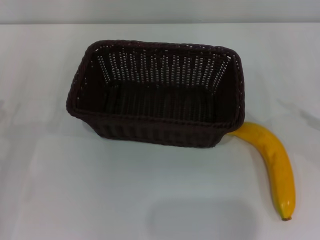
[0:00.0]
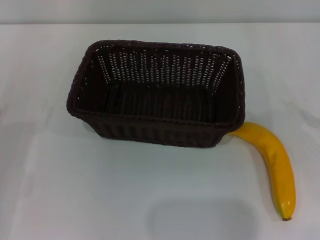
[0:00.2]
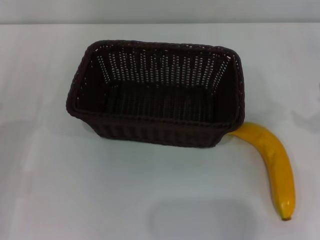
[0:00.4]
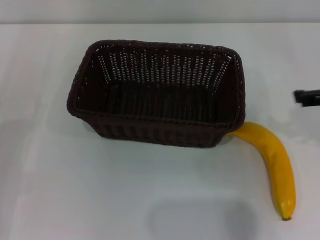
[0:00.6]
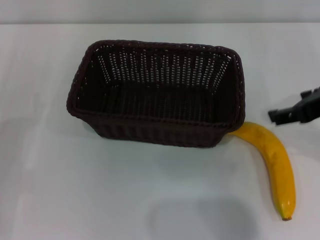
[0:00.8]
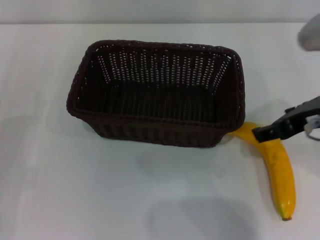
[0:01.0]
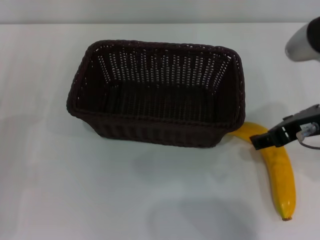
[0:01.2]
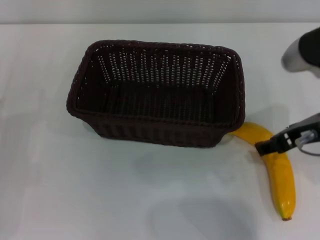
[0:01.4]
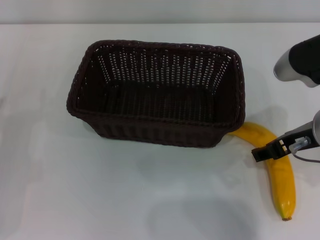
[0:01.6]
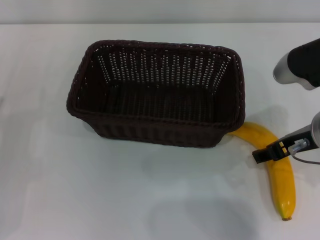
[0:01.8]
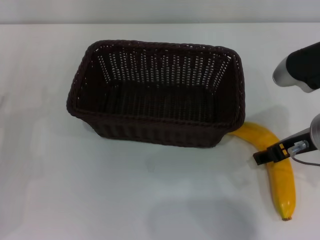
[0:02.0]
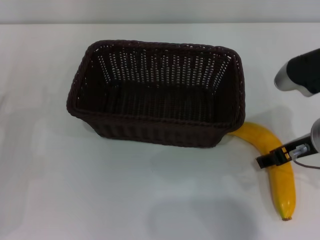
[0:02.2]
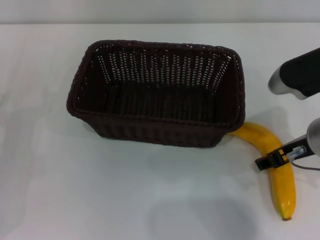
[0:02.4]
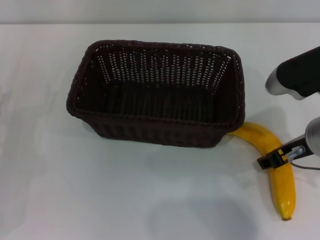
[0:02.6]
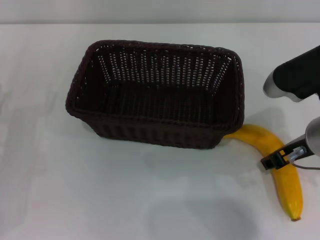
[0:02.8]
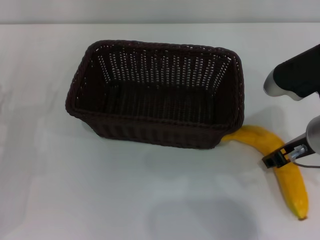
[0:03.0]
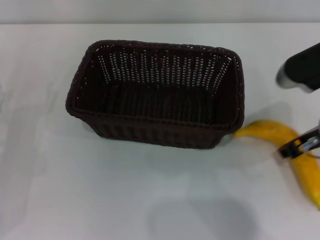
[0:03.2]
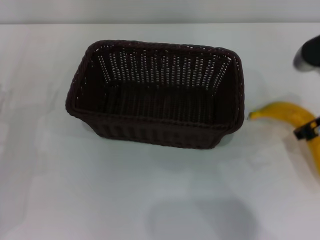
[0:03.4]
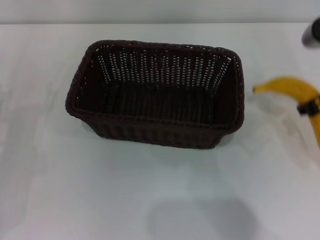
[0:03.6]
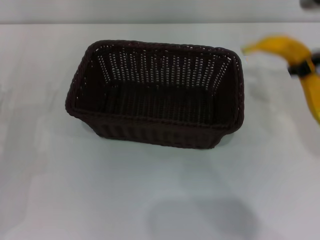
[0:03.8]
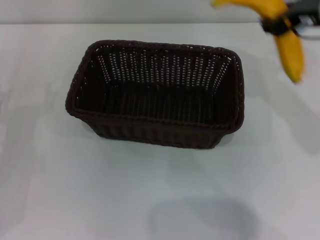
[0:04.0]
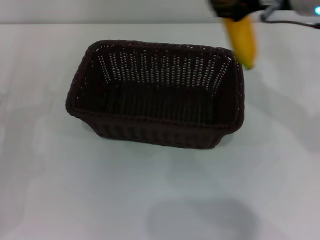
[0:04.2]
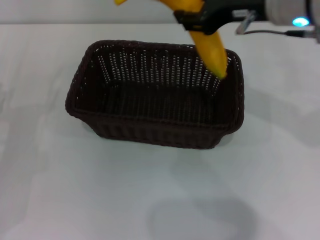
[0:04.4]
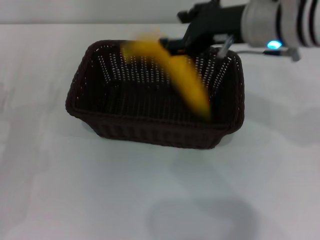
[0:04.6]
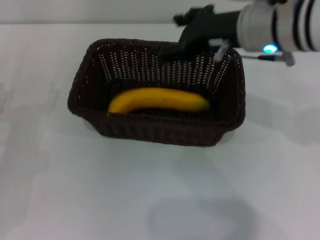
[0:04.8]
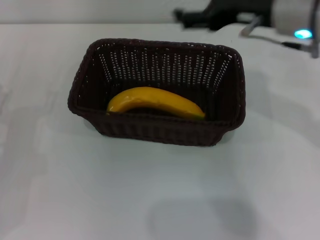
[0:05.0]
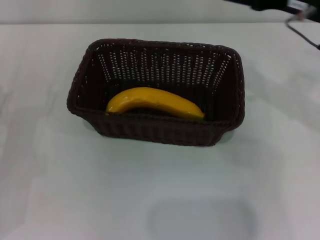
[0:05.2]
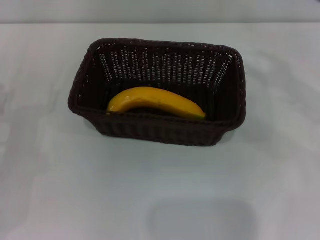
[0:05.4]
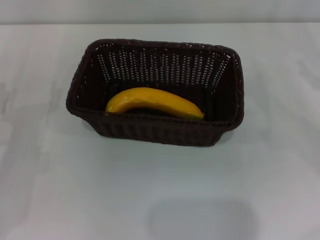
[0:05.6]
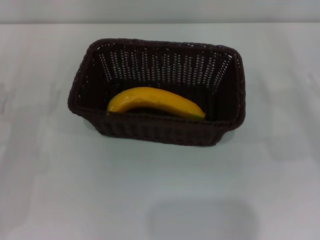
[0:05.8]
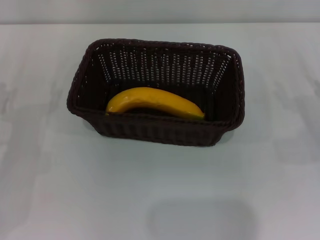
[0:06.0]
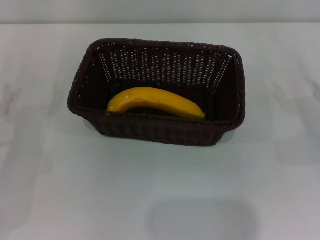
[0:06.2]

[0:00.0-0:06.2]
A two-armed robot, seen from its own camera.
Step, 0:00.0 to 0:03.4: Pick up the banana with the right gripper.
Step, 0:03.6 to 0:04.8: Place the banana into the dark basket with the right gripper.
0:00.0 to 0:01.6: The right gripper goes approximately 20 cm to the left.
0:01.6 to 0:03.2: The right gripper closes.
0:03.2 to 0:04.6: The right gripper heads upward, to the left and forward, covering approximately 15 cm.
0:04.6 to 0:06.2: The right gripper heads to the right and downward, covering approximately 30 cm, and opens.

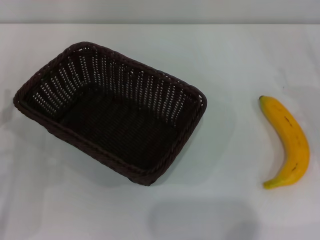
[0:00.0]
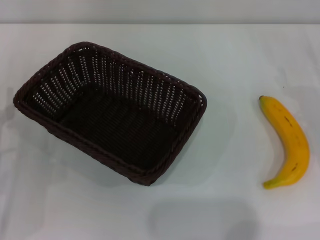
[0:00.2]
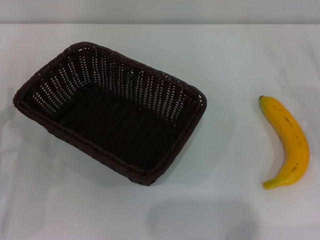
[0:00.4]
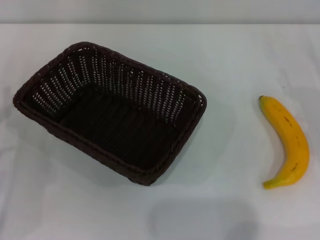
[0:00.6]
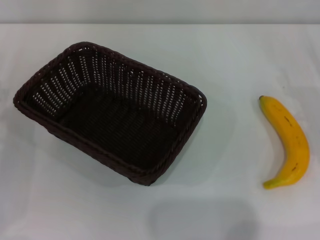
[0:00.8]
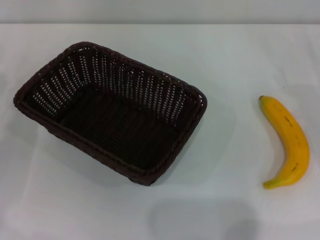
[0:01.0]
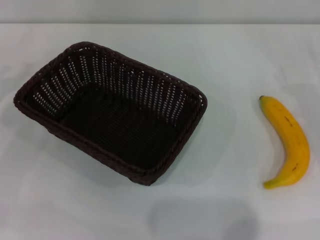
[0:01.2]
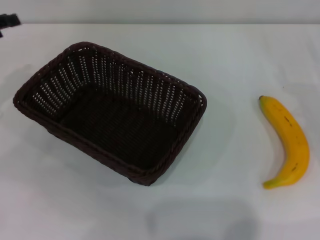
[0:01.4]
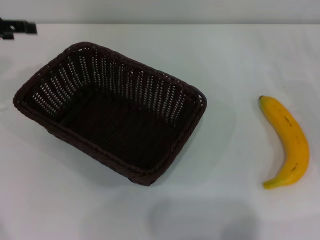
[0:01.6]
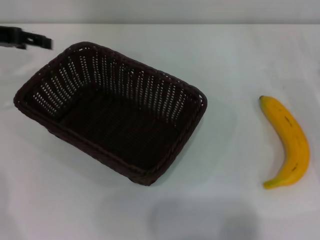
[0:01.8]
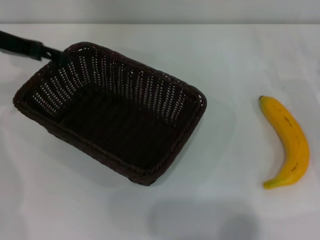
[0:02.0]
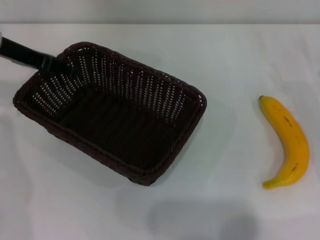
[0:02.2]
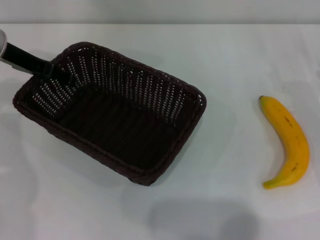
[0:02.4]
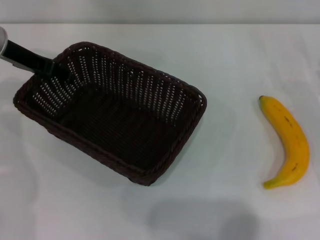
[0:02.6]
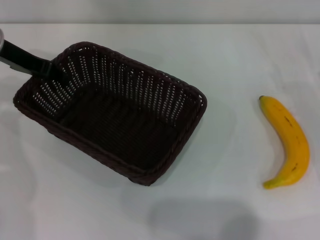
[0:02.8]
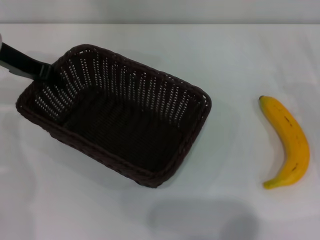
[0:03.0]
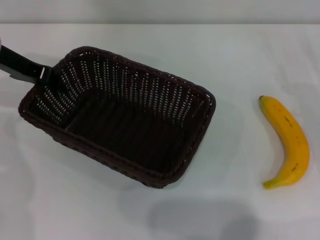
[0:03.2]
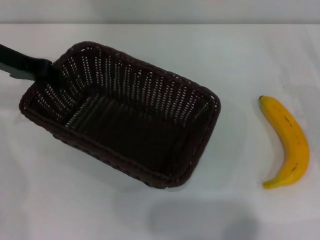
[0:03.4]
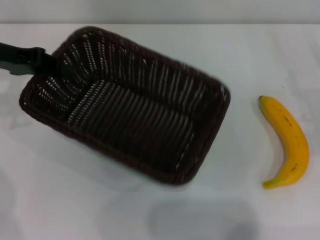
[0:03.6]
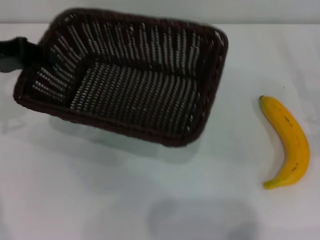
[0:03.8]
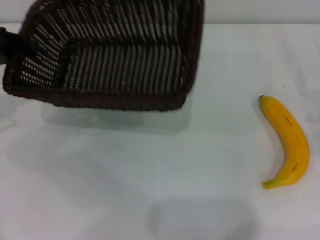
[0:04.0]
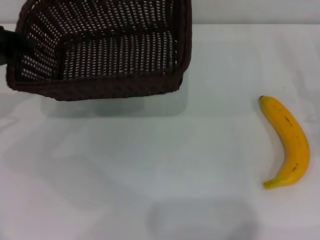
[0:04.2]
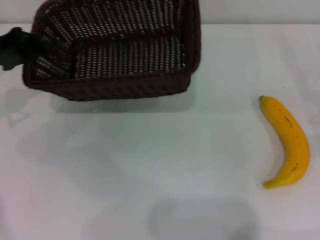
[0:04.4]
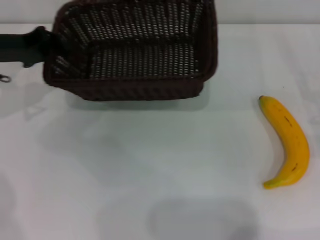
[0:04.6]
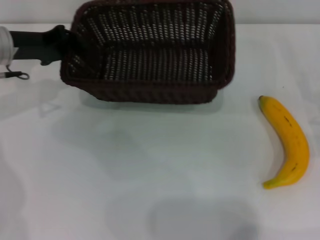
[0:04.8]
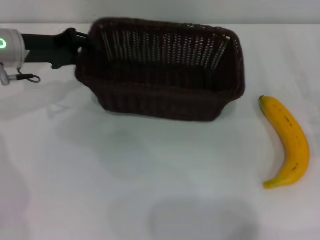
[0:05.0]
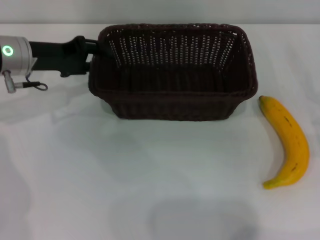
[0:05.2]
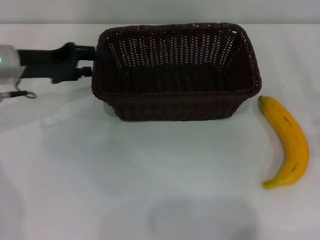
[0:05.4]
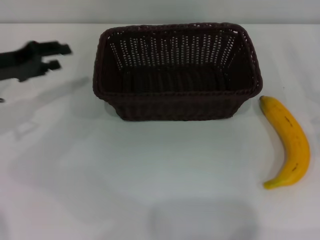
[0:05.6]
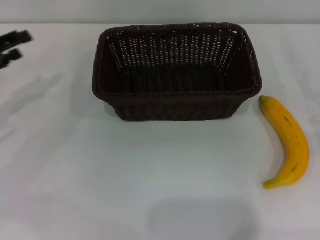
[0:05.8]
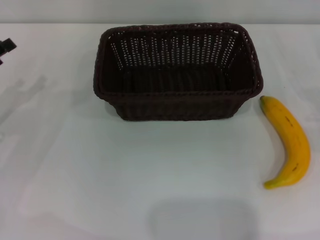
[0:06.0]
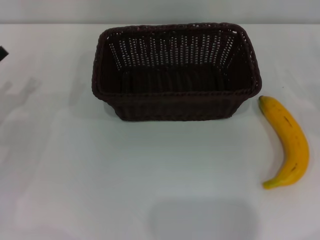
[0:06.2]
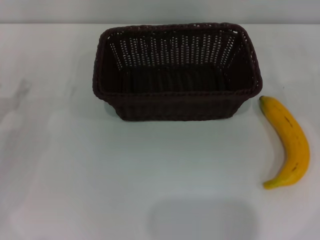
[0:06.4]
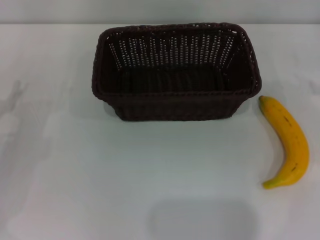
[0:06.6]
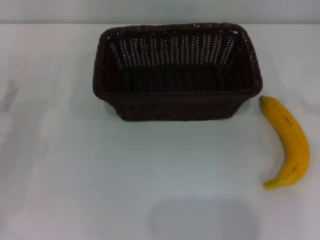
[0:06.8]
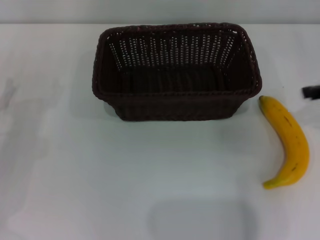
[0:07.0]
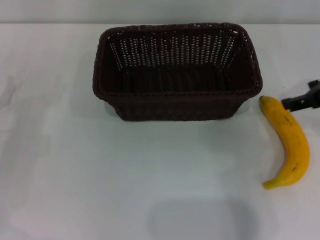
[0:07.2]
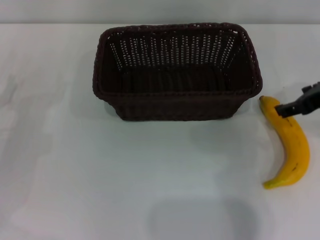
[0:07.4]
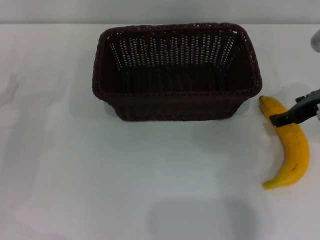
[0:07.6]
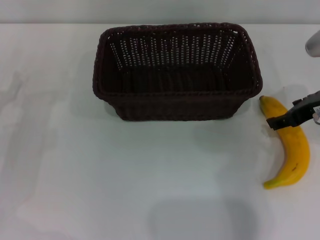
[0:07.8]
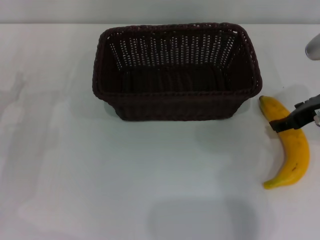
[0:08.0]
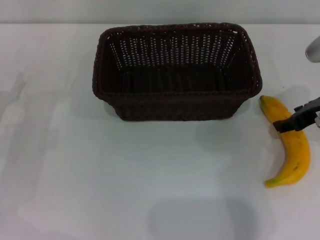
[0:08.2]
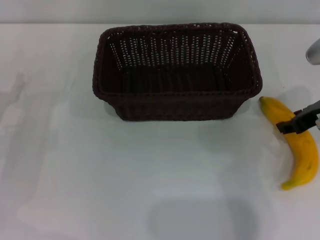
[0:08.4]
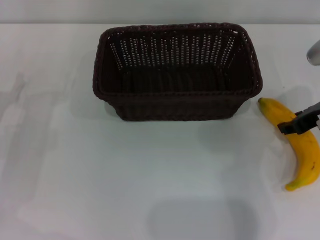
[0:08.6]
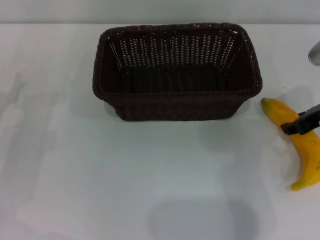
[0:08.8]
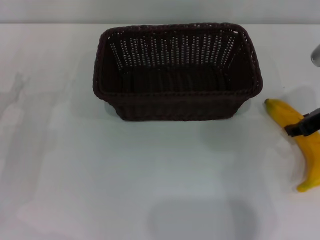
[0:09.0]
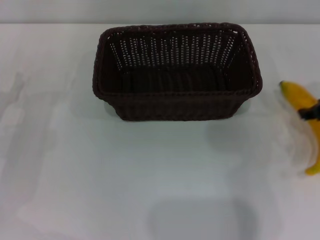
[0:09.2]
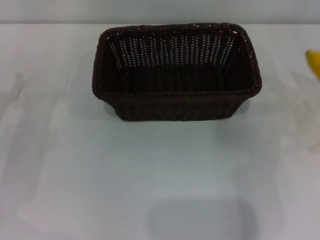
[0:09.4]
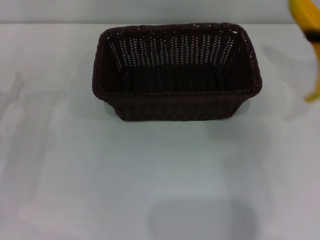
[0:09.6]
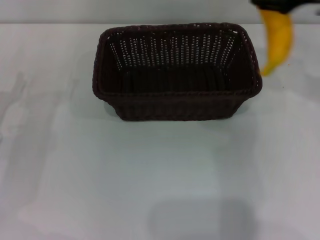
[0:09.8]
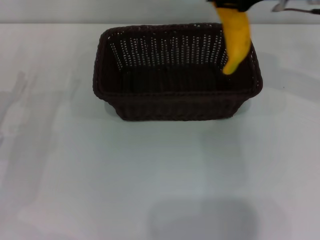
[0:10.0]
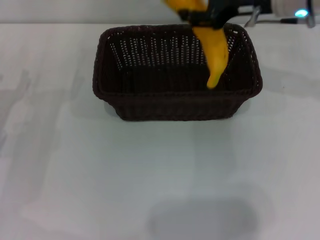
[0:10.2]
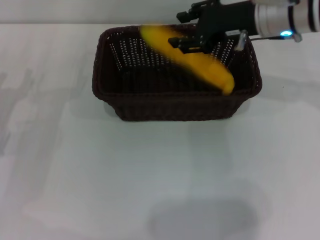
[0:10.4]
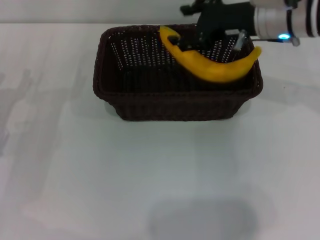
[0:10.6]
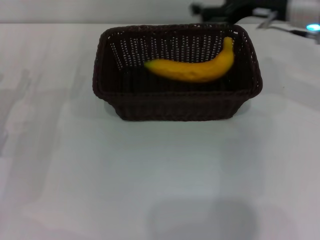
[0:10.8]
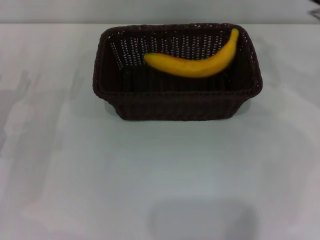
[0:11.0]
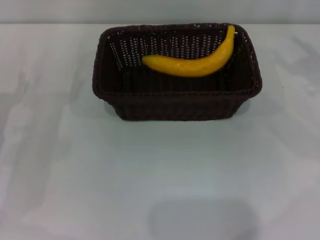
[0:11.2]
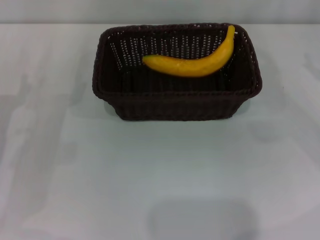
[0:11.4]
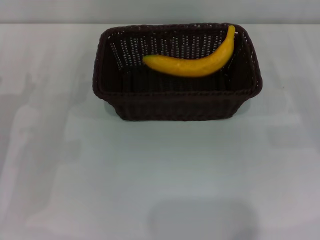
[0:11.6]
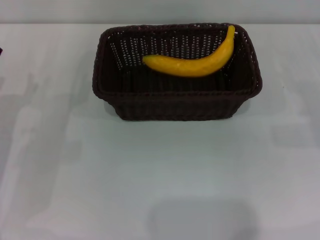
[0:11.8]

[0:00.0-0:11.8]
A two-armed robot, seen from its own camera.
Step, 0:00.0 to 0:03.6: Pick up the dark basket with the left gripper.
Step, 0:03.8 to 0:05.2: Place the dark basket in the center of view with the left gripper.
Step, 0:05.6 to 0:09.2: Pick up the banana with the right gripper.
Step, 0:09.4 to 0:10.6: Place the banana into the dark basket with the right gripper.
0:00.0 to 0:01.4: The left gripper shifts about 20 cm upward, forward and to the left.
0:01.4 to 0:03.0: The left gripper goes about 10 cm to the right, and closes its fingers.
0:03.0 to 0:04.4: The left gripper travels to the left by roughly 5 cm.
0:04.4 to 0:06.0: The left gripper moves backward and downward, roughly 10 cm, moves some 10 cm to the right and comes back, and opens its fingers.
0:06.0 to 0:07.4: The right gripper is displaced to the left and upward by approximately 20 cm.
0:07.4 to 0:08.8: The right gripper closes.
0:08.8 to 0:10.4: The right gripper is displaced to the left, forward and upward by roughly 15 cm.
0:10.4 to 0:11.8: The right gripper goes roughly 30 cm to the right, downward and backward, and opens its fingers.

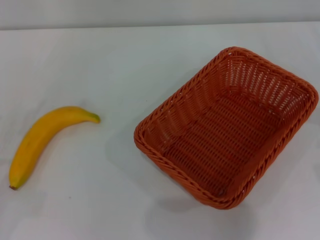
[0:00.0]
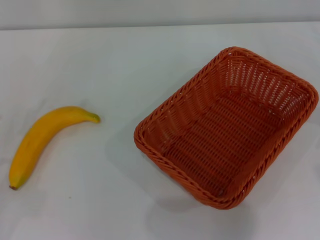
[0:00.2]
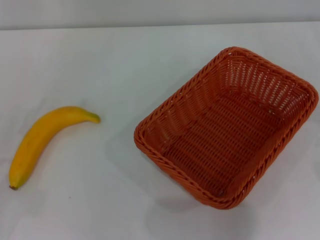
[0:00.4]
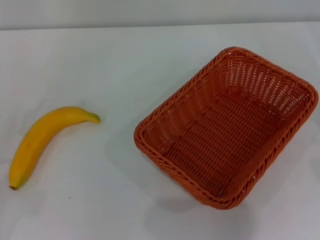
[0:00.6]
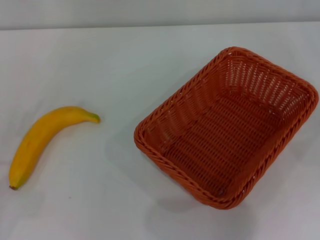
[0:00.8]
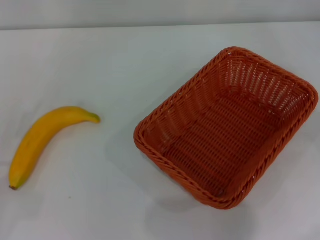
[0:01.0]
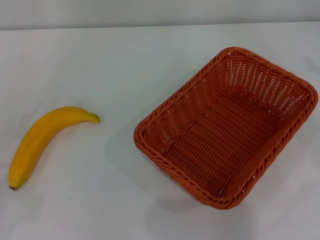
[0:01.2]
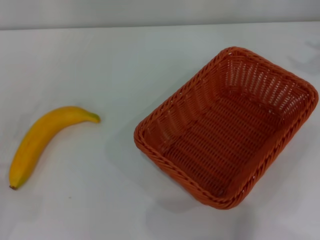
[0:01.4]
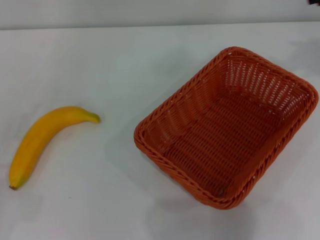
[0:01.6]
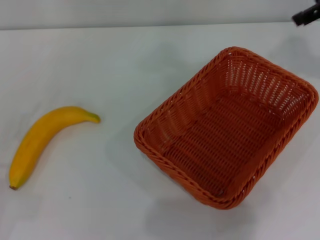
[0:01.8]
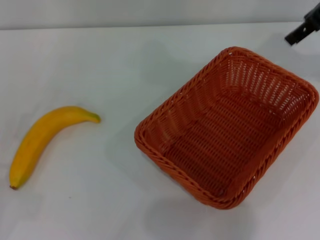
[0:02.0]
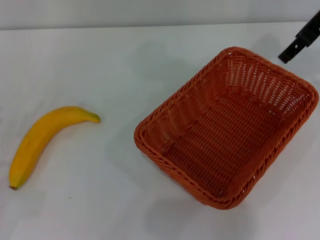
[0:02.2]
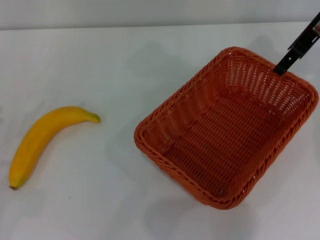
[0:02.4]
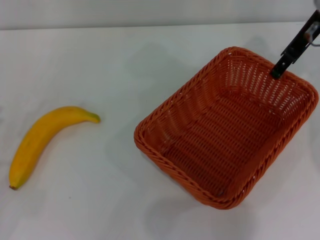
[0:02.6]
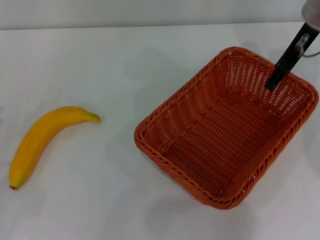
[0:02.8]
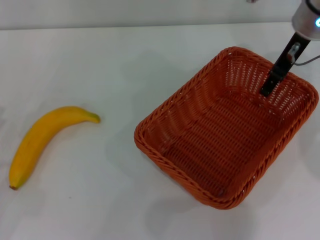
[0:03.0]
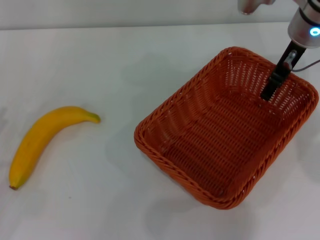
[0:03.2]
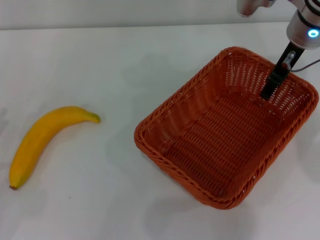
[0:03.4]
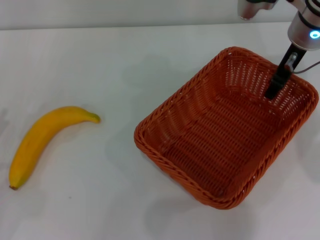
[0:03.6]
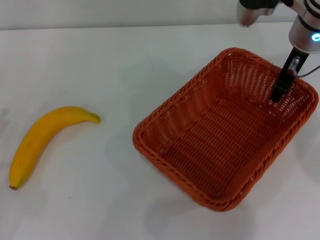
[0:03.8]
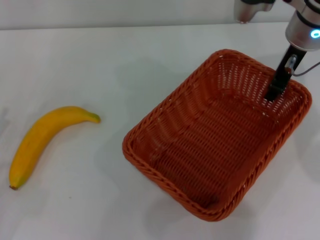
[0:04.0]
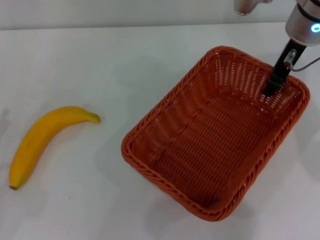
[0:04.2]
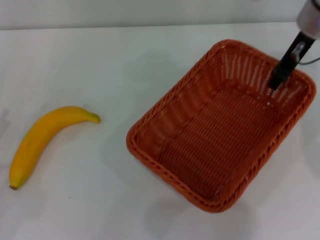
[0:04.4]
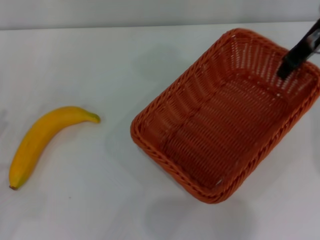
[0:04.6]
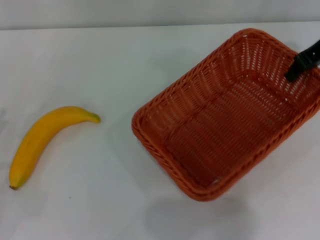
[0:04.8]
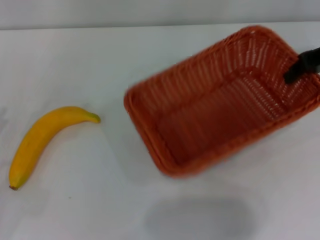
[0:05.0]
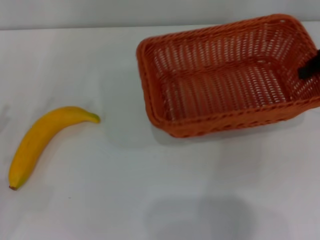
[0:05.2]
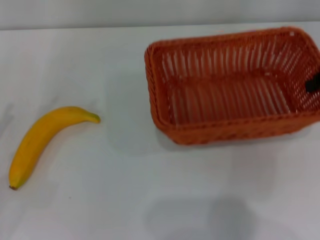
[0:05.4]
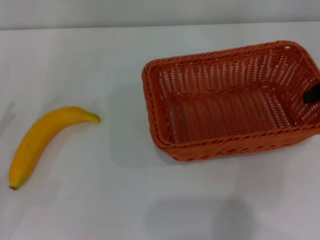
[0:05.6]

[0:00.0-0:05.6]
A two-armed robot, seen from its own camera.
Step, 0:00.0 to 0:04.8: Pick up the light basket with the right gripper.
0:01.4 to 0:02.8: The right gripper goes roughly 20 cm to the left and forward.
0:02.8 to 0:04.2: The right gripper closes its fingers.
0:04.2 to 0:05.6: The right gripper moves to the right and backward, about 20 cm.
